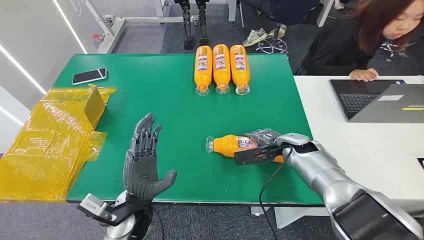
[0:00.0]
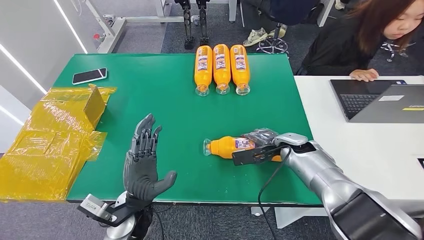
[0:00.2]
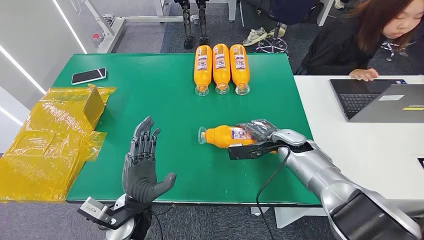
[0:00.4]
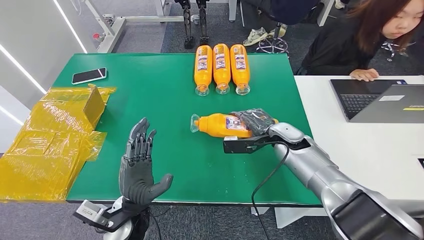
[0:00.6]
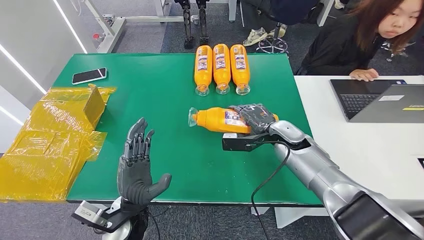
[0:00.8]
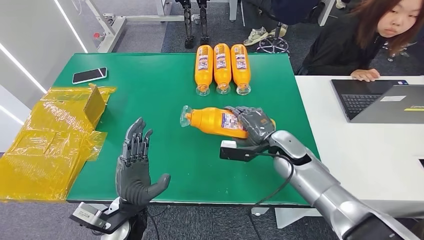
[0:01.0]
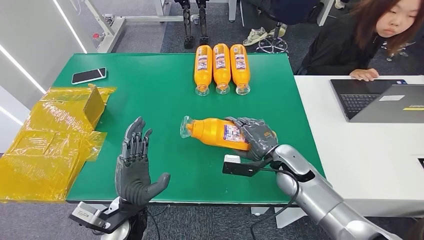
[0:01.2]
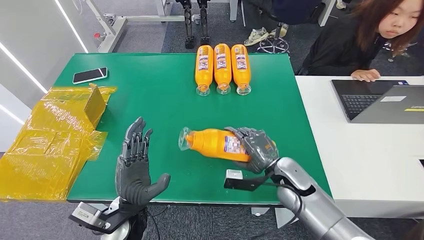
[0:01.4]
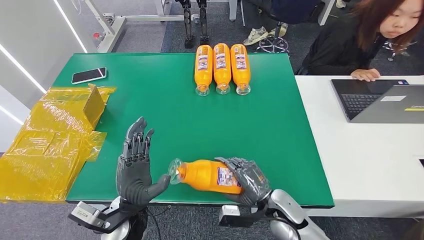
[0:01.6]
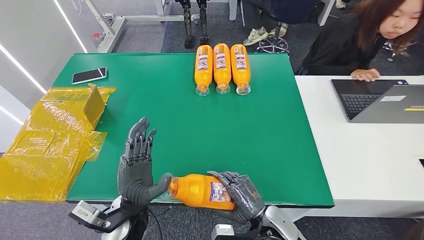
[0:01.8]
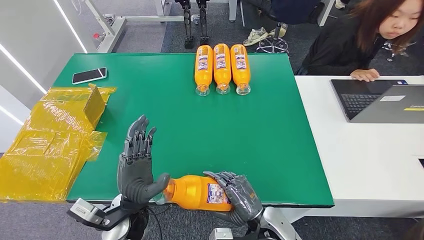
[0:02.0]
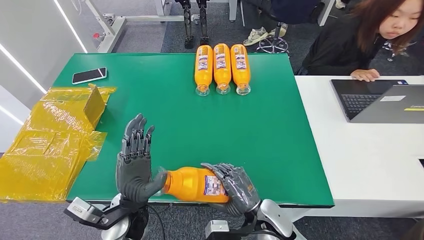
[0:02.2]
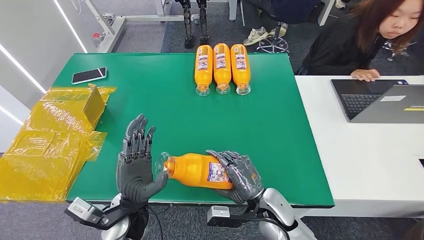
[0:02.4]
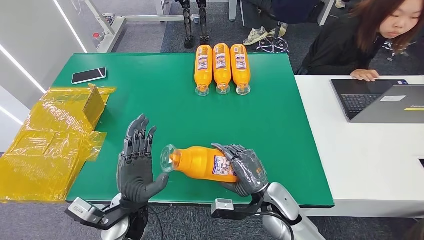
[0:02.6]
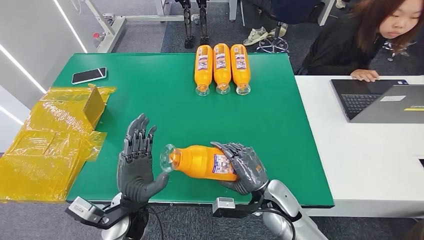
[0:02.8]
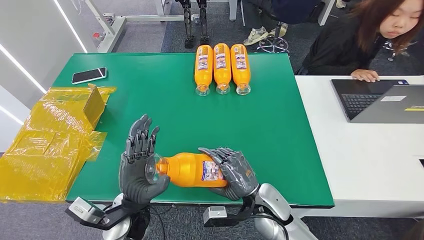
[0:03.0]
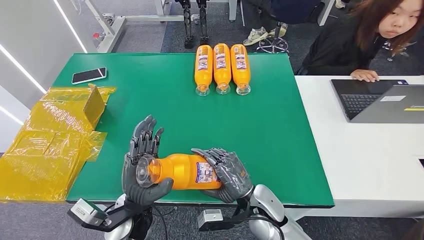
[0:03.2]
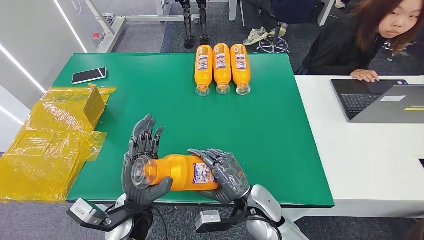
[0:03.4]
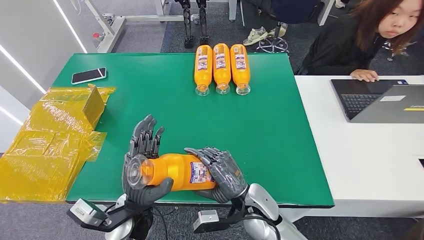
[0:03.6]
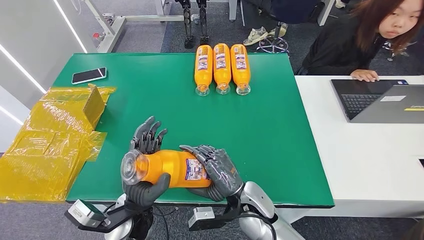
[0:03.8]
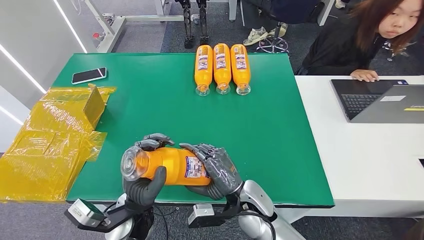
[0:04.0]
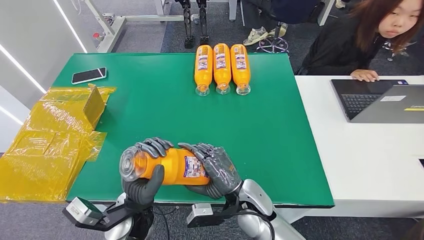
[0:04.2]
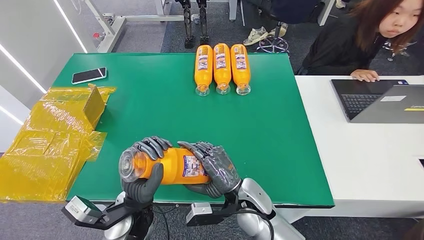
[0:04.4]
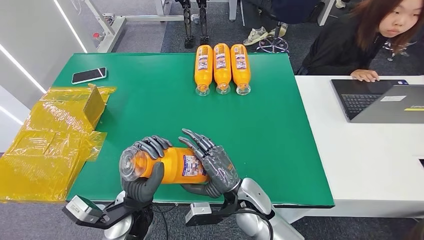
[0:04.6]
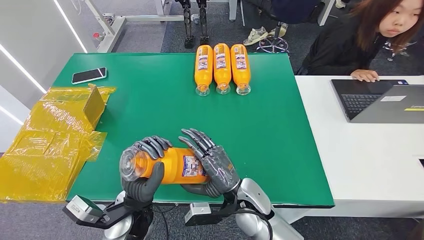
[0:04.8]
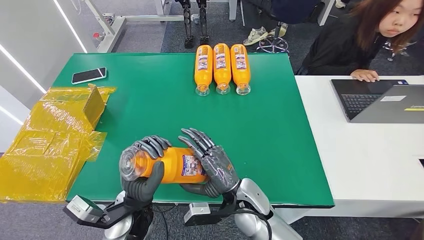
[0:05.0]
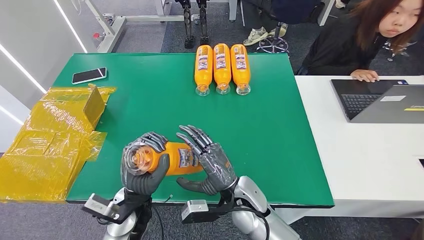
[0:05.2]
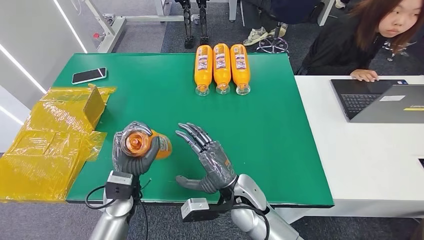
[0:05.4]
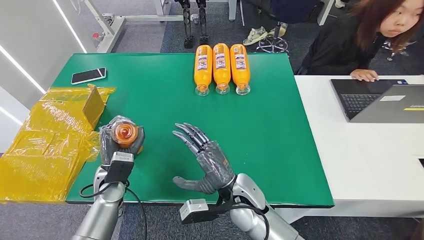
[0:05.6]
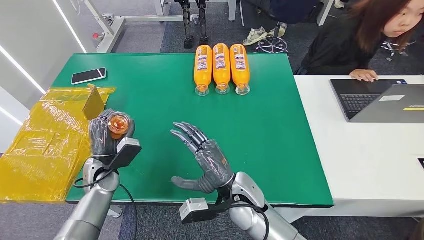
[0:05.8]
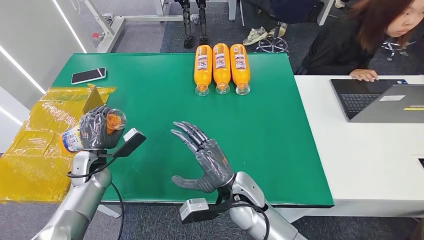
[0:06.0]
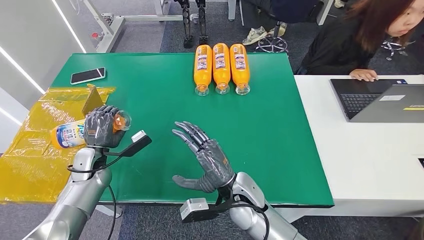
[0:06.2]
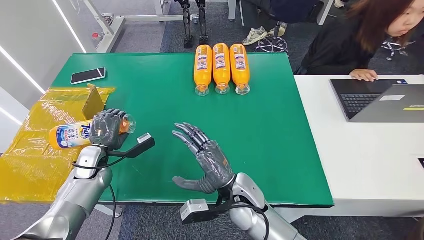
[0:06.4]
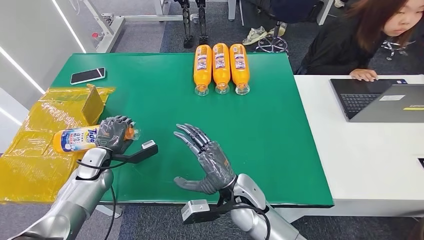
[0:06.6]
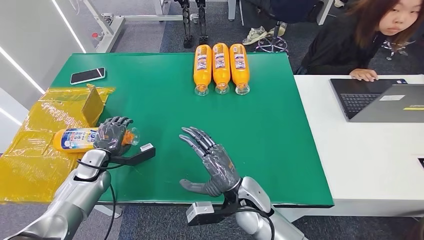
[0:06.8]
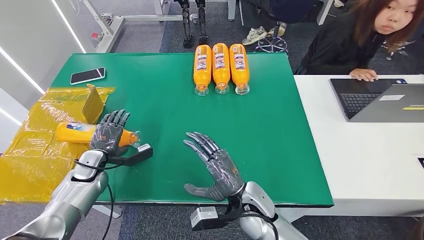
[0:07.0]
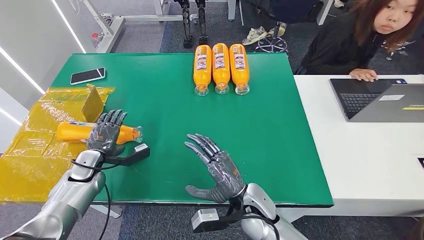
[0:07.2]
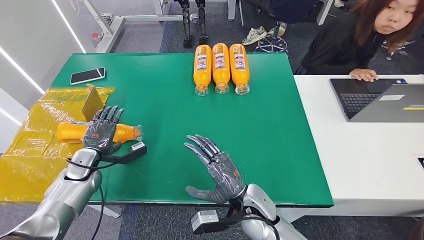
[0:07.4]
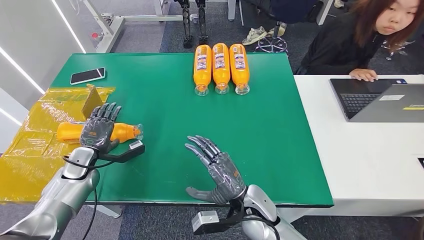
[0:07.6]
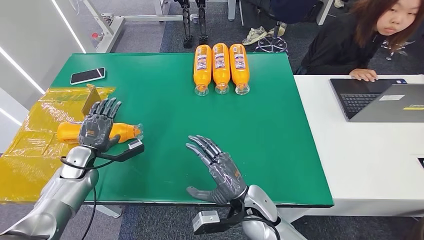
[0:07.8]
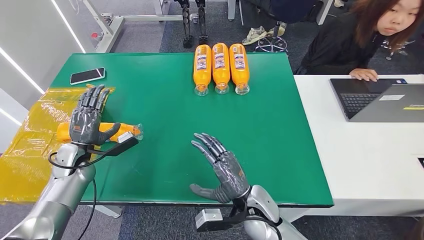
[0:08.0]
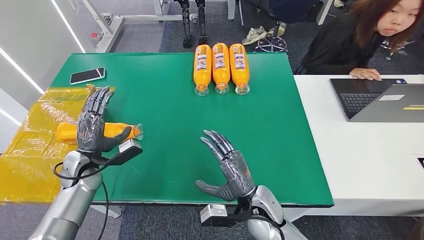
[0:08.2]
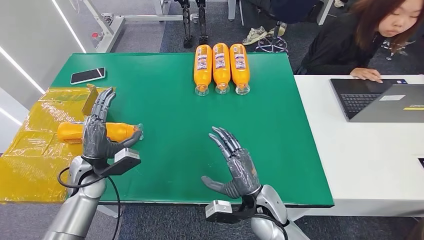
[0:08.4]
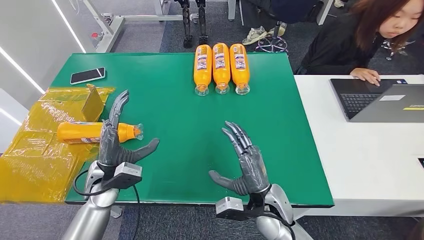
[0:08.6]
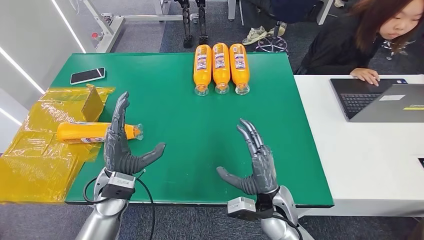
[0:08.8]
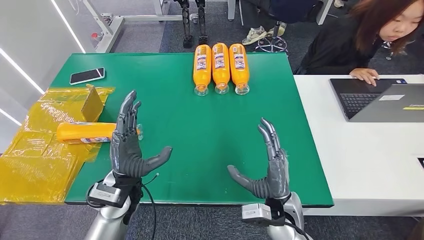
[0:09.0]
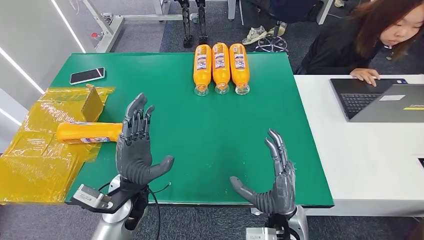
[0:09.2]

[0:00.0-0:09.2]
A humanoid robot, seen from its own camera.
Step, 0:00.0 to 0:03.4: Pick up the bottle from the table.
Step, 0:03.6 to 0:09.2: Turn the bottle to the front side.
0:01.6 to 0:03.0: The right hand changes place by about 5 cm.
0:03.0 to 0:04.6: The right hand is displaced to the left by some 5 cm.
0:04.6 to 0:06.2: The left hand shifts roughly 25 cm to the left and forward.
0:06.2 to 0:07.6: The left hand shifts about 5 cm to the left.
0:07.6 to 0:09.2: The left hand is displaced to the right by some 25 cm. Meanwhile the right hand travels to the right by approximately 5 cm.

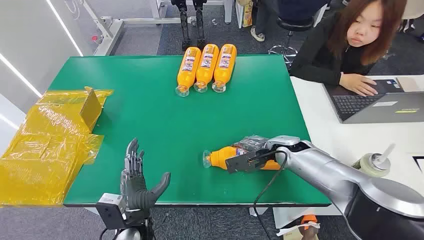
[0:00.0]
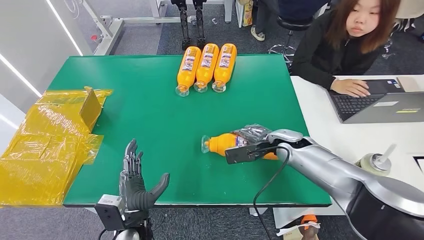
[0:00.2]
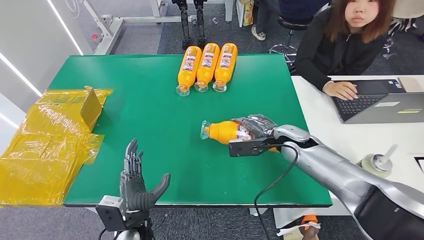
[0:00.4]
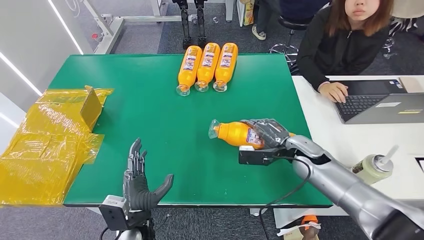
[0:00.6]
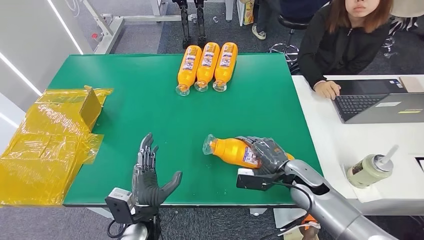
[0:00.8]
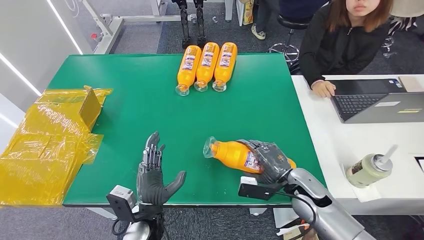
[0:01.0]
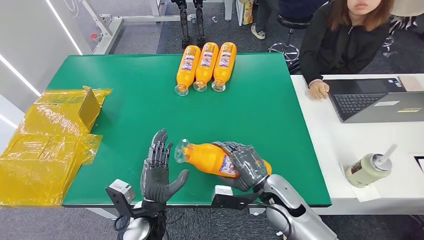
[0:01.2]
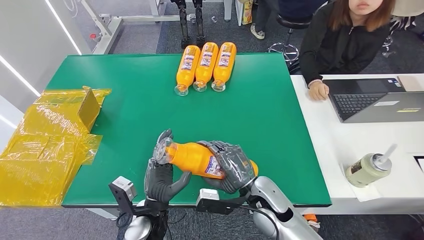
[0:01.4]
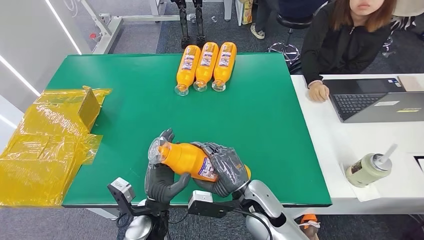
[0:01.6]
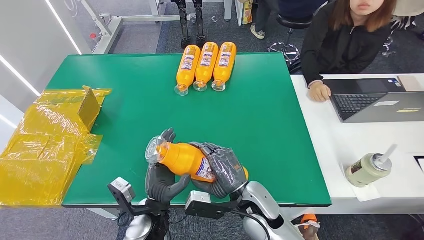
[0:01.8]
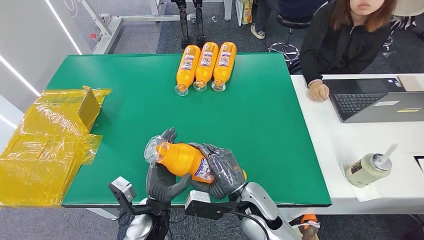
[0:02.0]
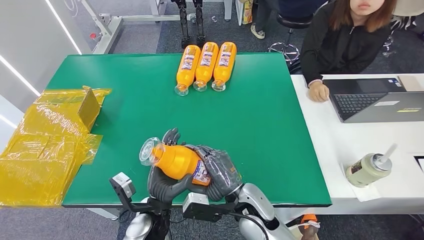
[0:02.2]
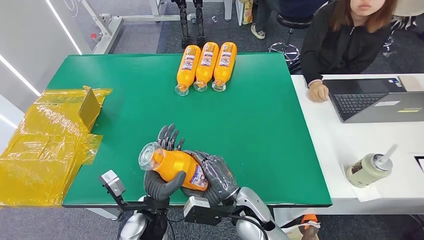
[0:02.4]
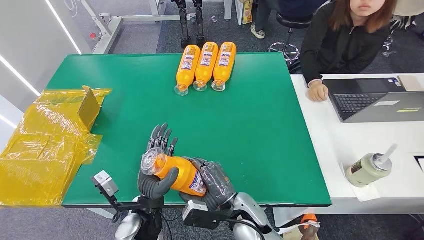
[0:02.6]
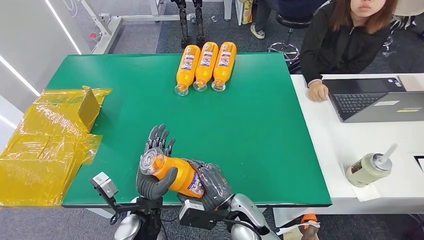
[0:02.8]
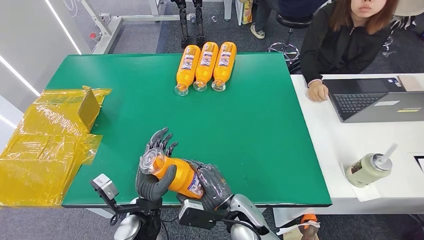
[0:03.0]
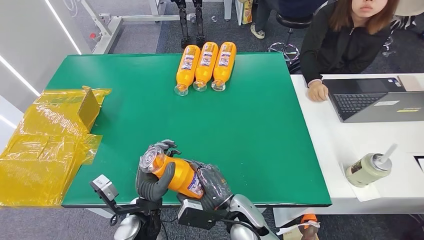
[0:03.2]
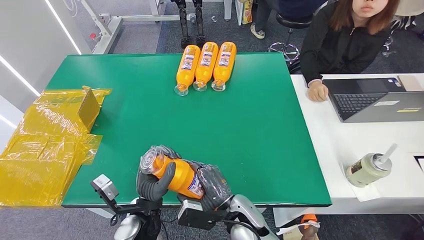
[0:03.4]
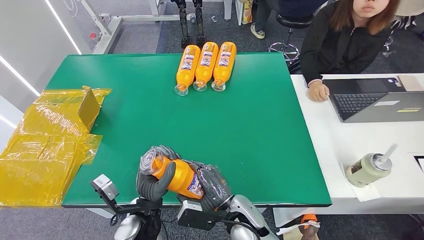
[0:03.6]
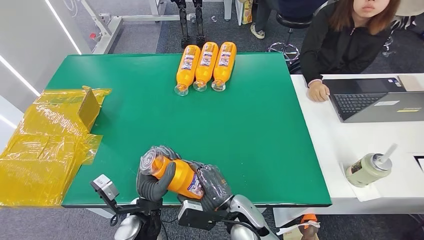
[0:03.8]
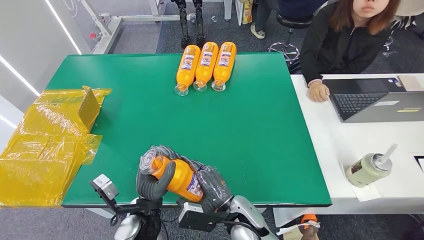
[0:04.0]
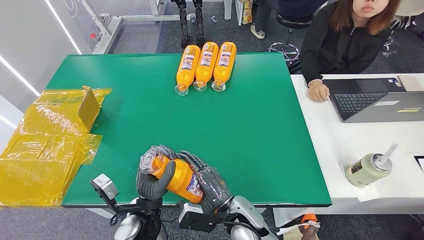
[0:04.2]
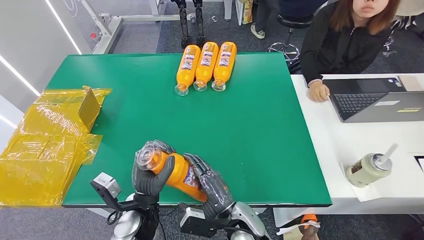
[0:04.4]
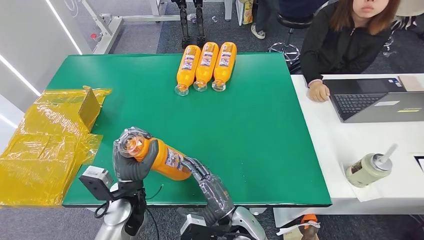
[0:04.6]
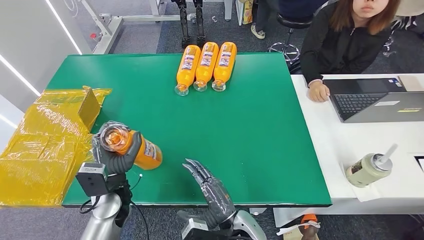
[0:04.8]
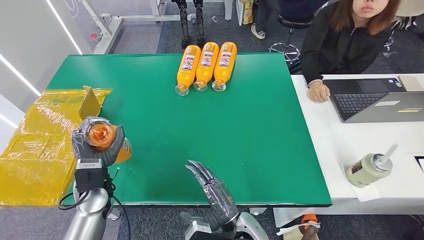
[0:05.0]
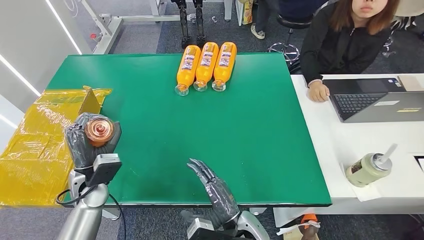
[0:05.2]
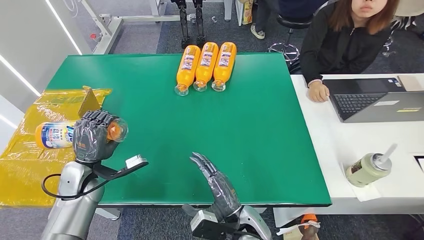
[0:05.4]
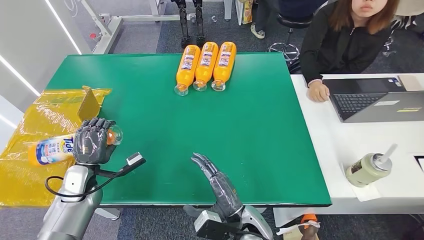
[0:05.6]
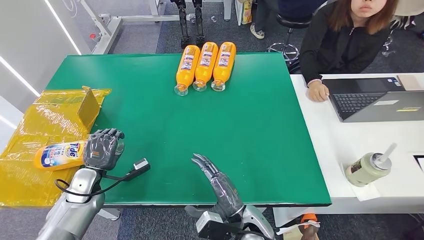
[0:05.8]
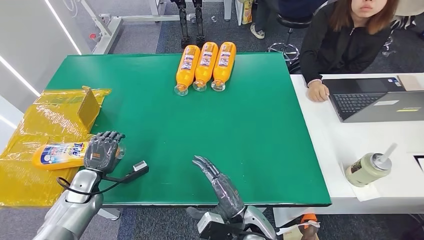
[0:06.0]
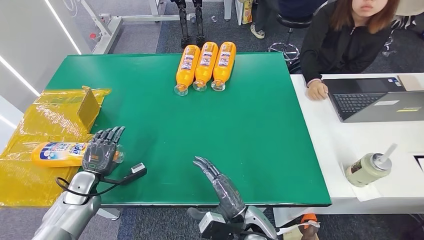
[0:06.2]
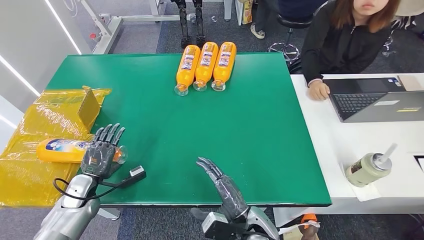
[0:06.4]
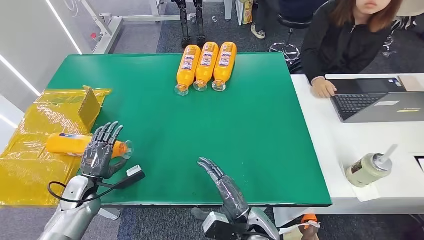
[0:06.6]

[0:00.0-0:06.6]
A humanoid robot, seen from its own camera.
Step, 0:00.0 to 0:02.2: Pick up the bottle from the table.
Step, 0:02.4 to 0:06.4: Turn the bottle to the front side.
0:01.6 to 0:03.2: The right hand shifts by approximately 5 cm.
0:03.2 to 0:05.0: The left hand goes about 15 cm to the left and forward.
0:05.0 to 0:06.6: The left hand is displaced to the left and downward by some 15 cm.
